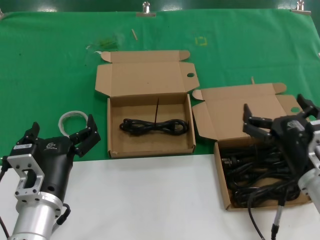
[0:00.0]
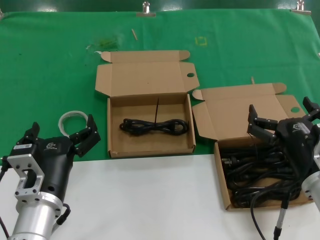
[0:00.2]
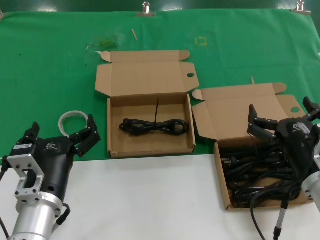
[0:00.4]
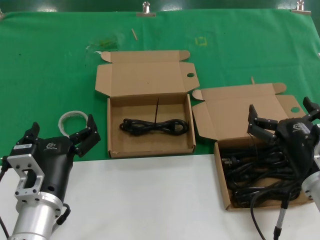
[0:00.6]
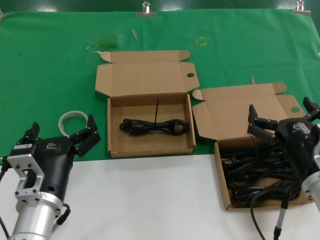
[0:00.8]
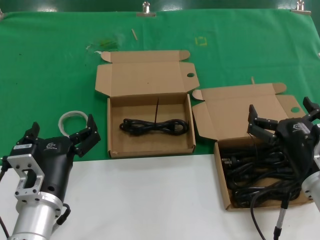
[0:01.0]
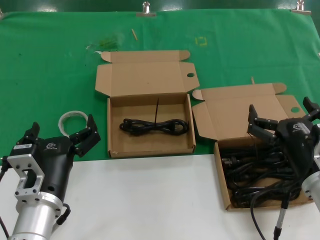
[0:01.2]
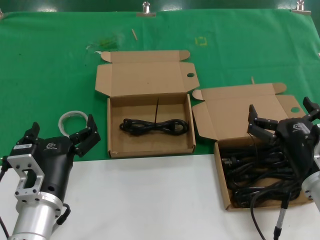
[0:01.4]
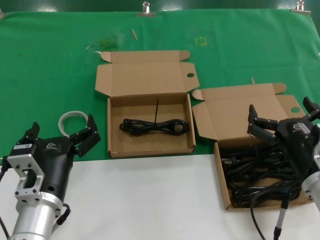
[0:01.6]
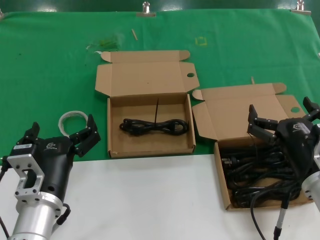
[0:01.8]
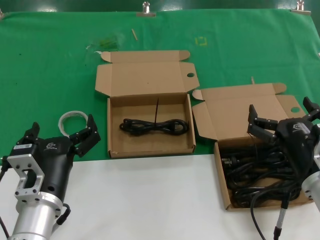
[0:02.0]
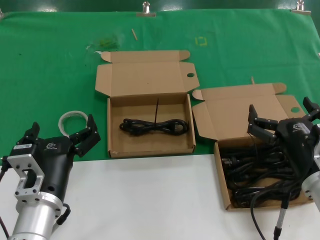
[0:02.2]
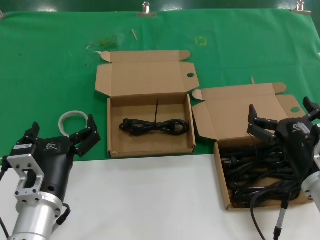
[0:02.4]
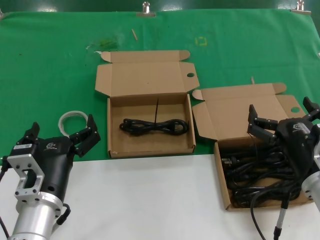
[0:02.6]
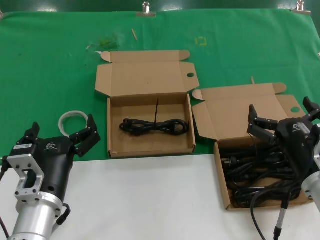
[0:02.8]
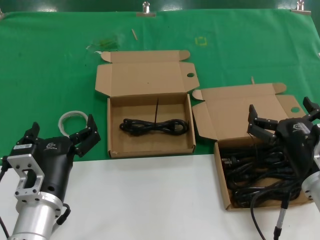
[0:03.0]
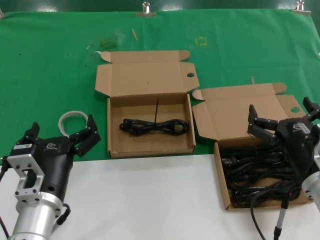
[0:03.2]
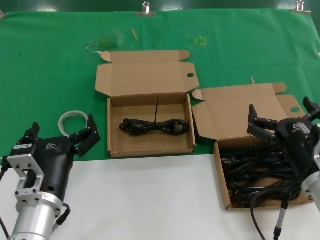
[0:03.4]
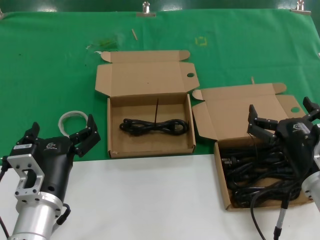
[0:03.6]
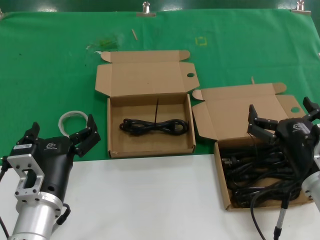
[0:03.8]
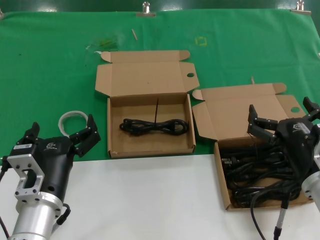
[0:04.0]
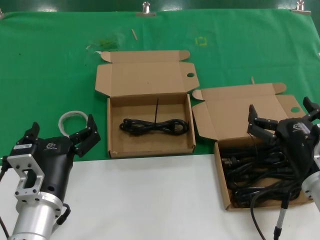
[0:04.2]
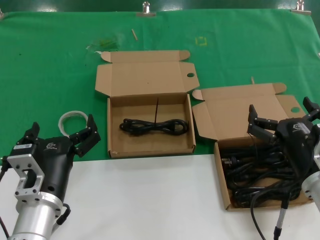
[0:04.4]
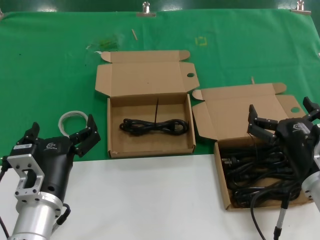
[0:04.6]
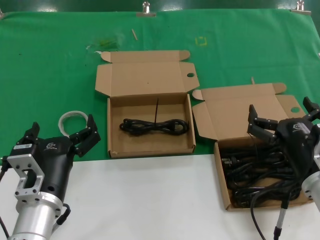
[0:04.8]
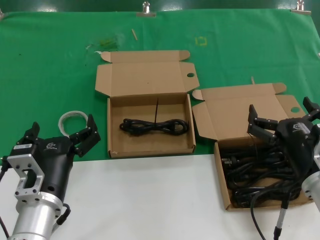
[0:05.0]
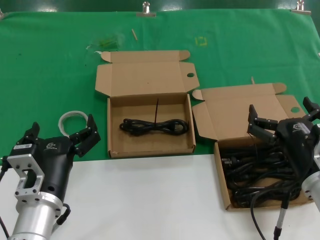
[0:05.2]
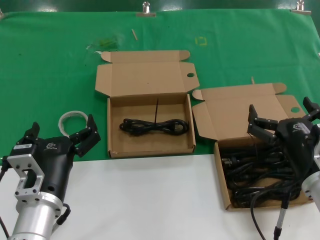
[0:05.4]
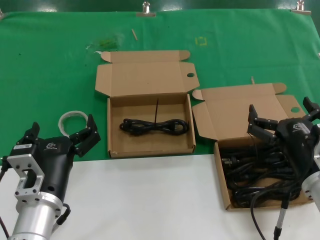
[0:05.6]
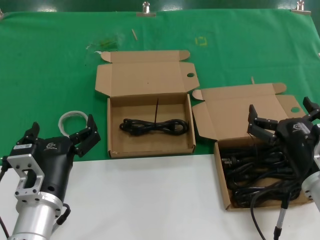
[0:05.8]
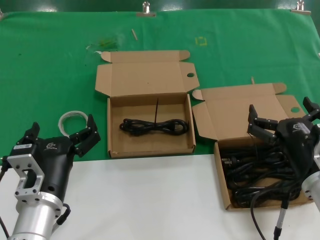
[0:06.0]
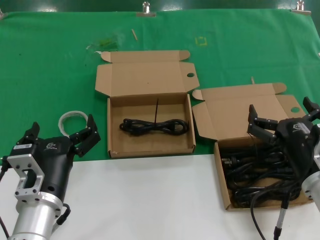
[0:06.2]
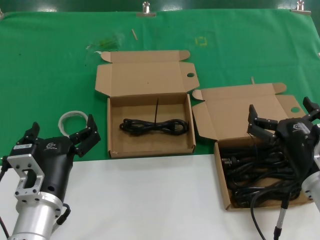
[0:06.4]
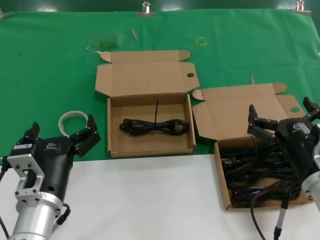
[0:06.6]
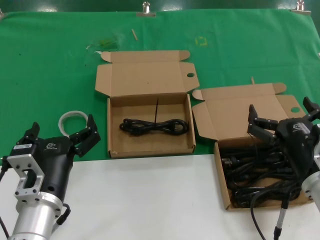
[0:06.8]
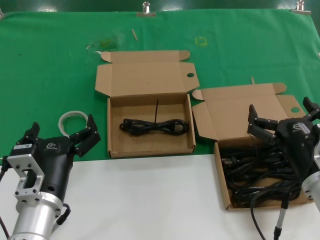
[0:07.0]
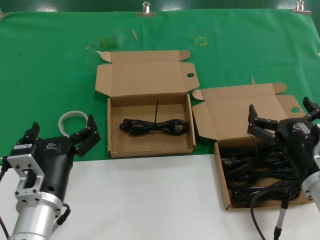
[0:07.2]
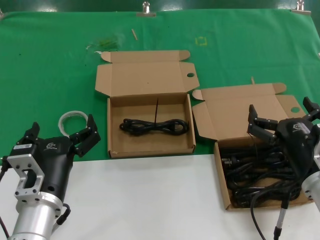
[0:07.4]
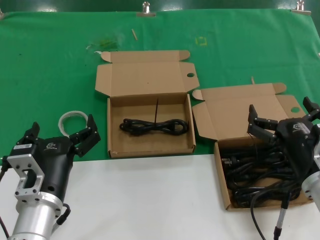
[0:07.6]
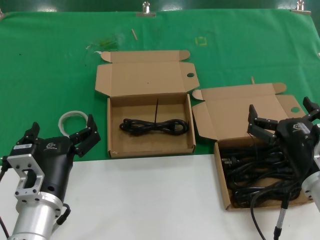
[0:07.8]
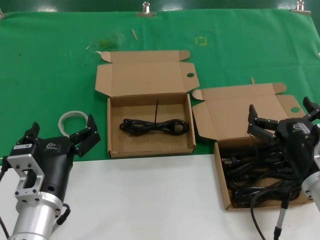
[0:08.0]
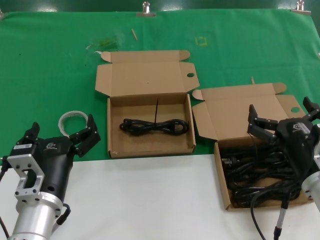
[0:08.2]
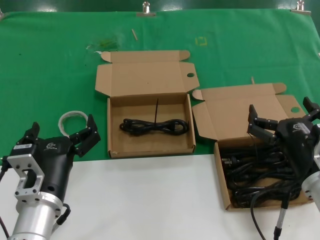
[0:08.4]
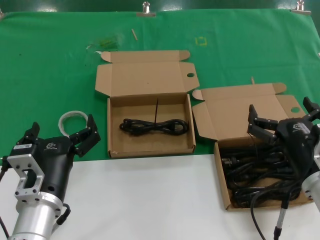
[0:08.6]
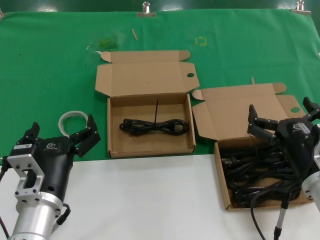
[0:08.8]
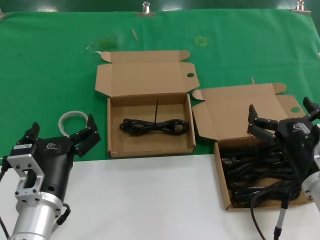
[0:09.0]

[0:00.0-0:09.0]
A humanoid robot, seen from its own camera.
Task of the whole recording: take the parts from the box containing them and put them into an empty box.
0:00.0 to 0:09.0: Neither hand changes place.
